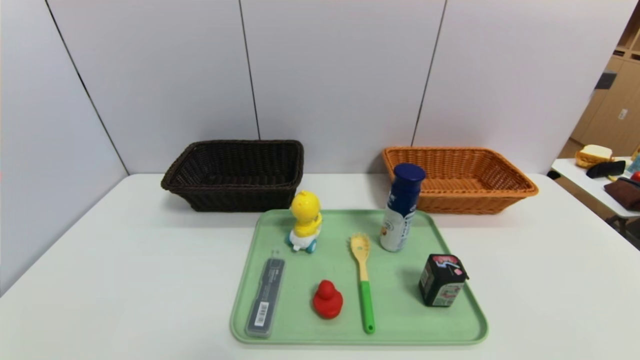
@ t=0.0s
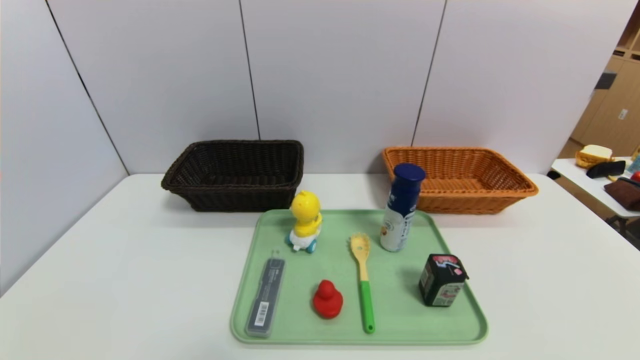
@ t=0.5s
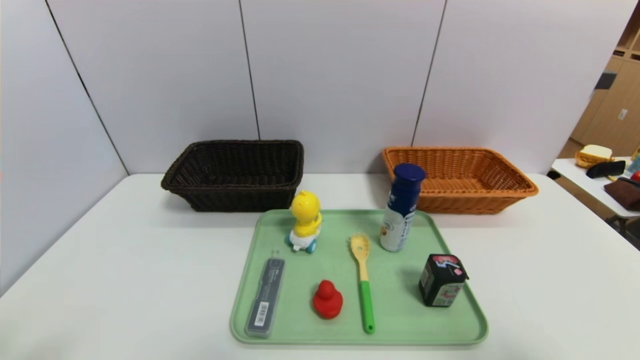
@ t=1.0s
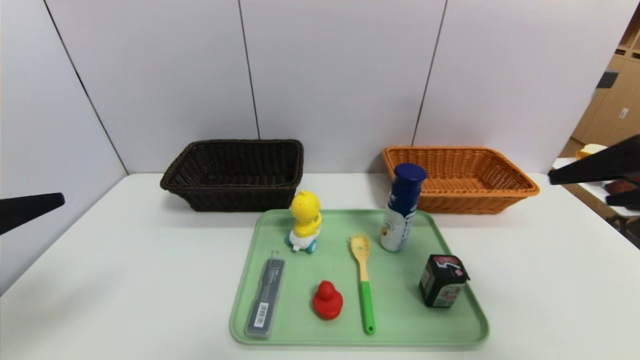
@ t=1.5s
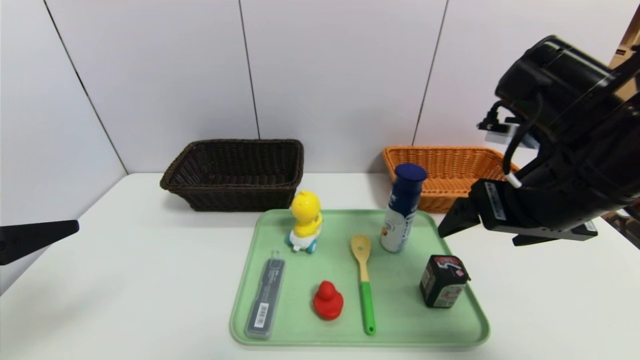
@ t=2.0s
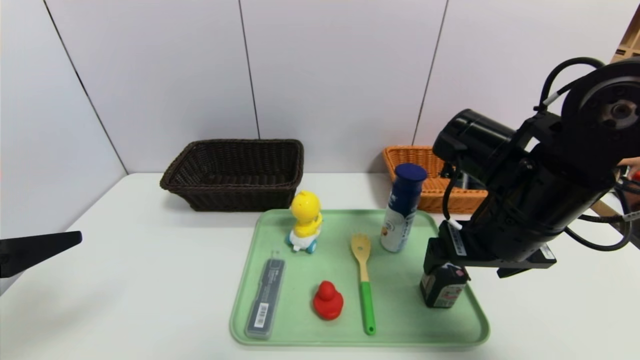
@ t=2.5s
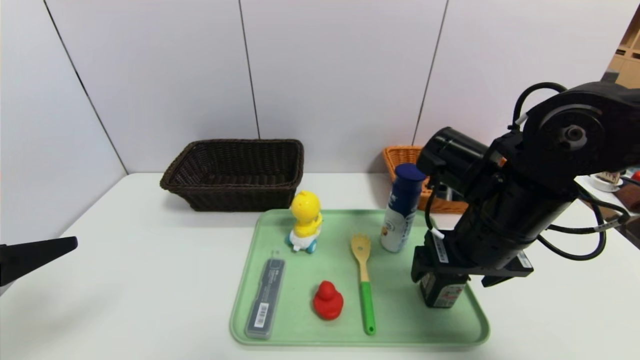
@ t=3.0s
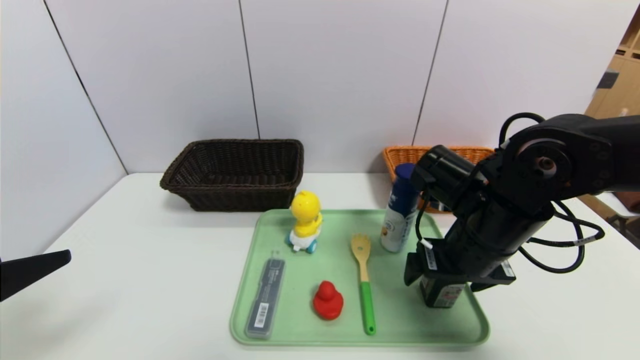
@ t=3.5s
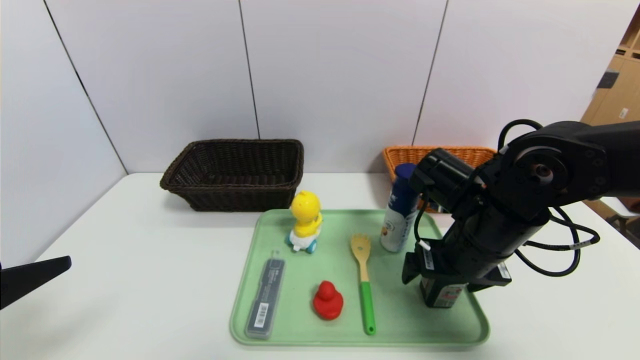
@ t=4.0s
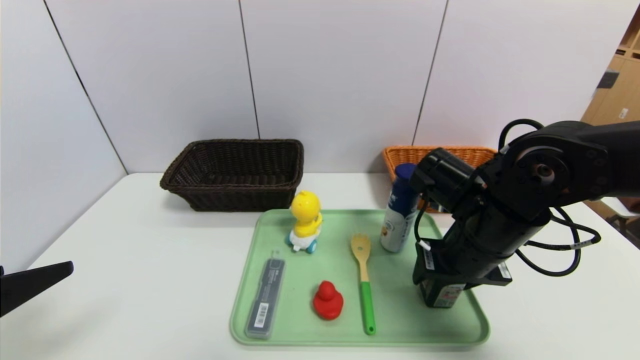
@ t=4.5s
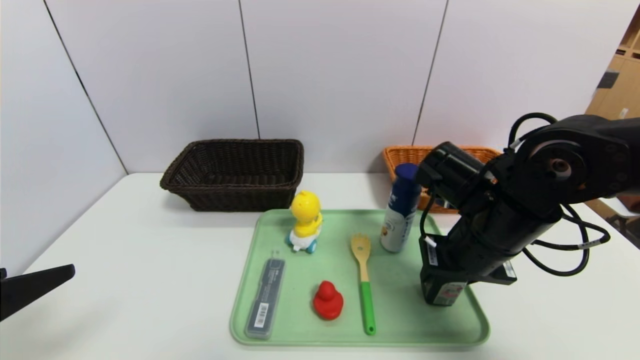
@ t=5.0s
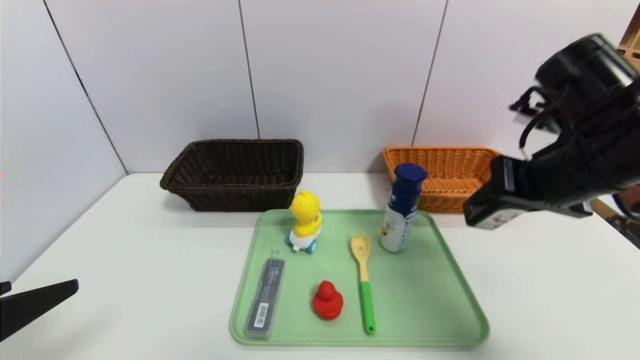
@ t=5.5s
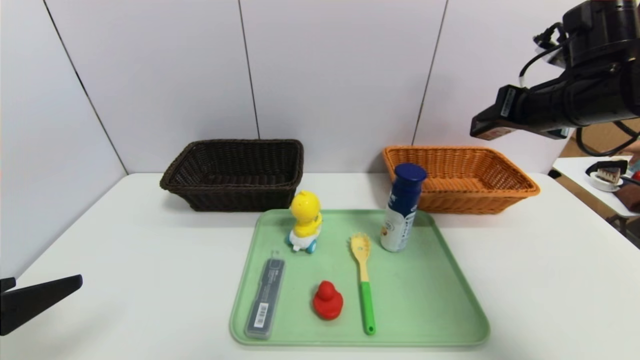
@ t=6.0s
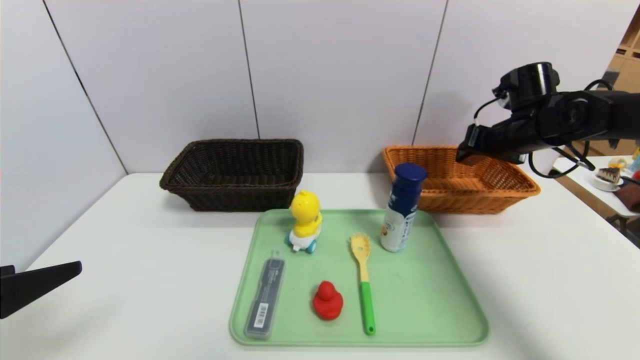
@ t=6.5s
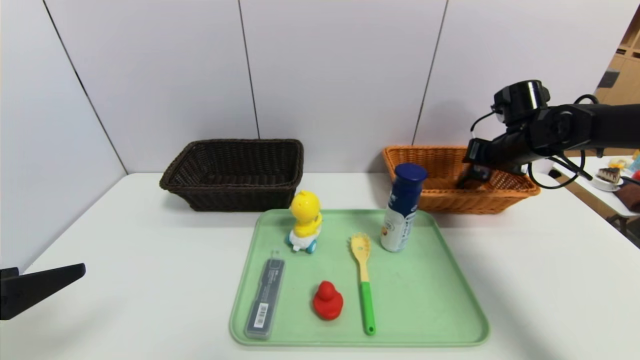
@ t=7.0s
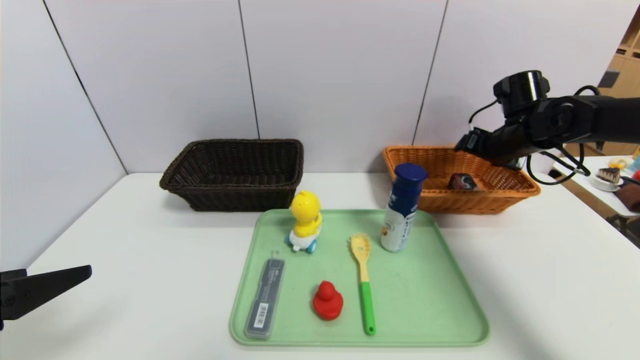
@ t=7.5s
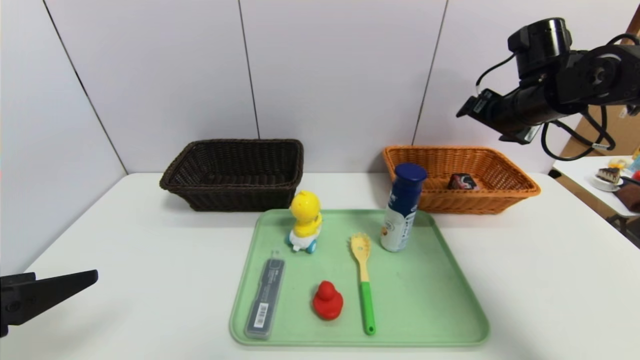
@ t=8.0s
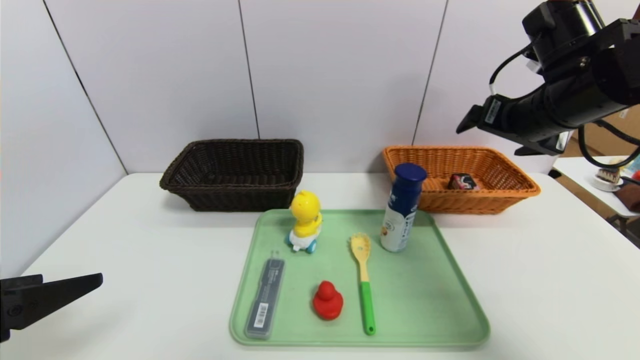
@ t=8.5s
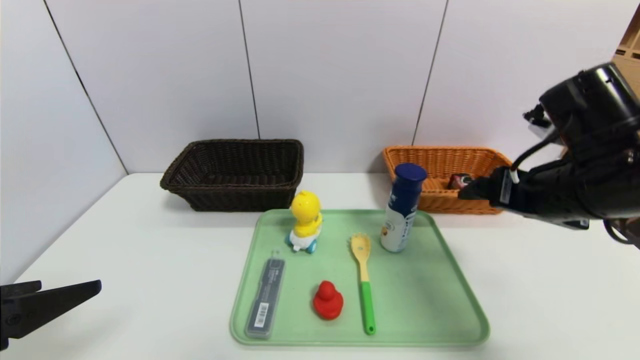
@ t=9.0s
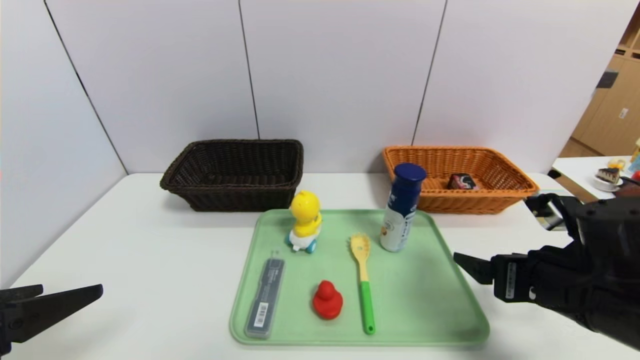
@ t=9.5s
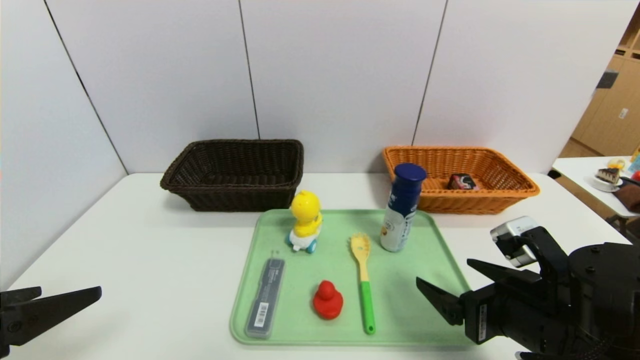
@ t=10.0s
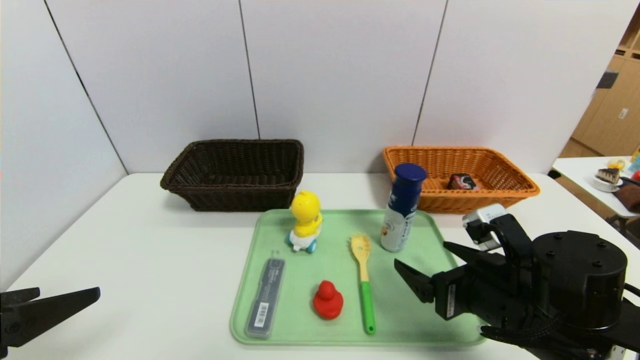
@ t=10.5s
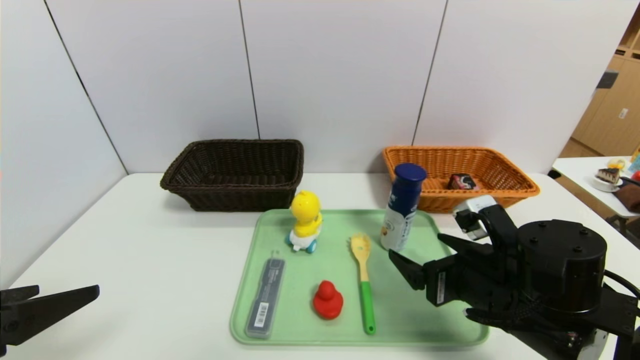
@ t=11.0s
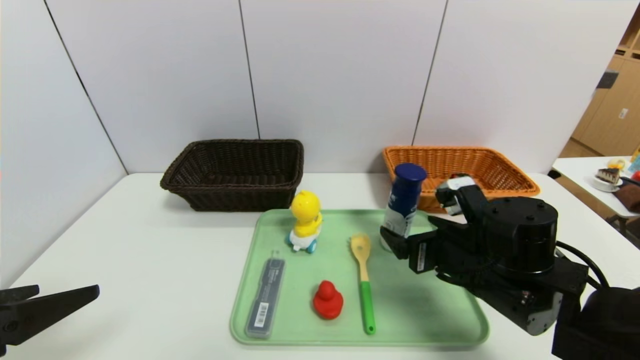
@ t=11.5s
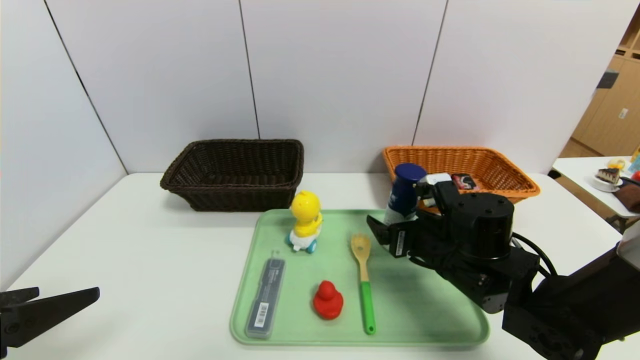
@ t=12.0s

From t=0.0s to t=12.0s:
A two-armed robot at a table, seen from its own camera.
Task of the whole recording: place the food in the right basket with the right gripper, and place the non food items in the left basket with the left gripper.
Step, from t=0.0s to t=8.5s: Grasp the square chewing gum and put it in the right basket.
From t=0.0s to t=2.0s: The right gripper goes approximately 35 cm forward, upward and to the left, while the left gripper heads upward and forward, covering some 25 cm.
From t=2.0s to t=4.0s: The right gripper heads downward, covering about 10 cm.
From t=4.0s to t=6.0s: The right gripper goes approximately 20 cm upward, to the right and forward, and closes its fingers.
From t=6.0s to t=8.0s: The right gripper goes approximately 5 cm forward, goes downward and returns, approximately 10 cm each way, and opens its fingers.
From t=8.0s to t=10.0s: The right gripper is displaced backward and downward by about 30 cm.
From t=10.0s to t=12.0s: The right gripper travels forward and to the left by some 10 cm.

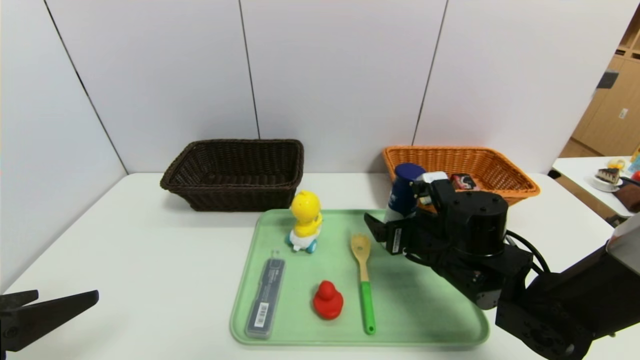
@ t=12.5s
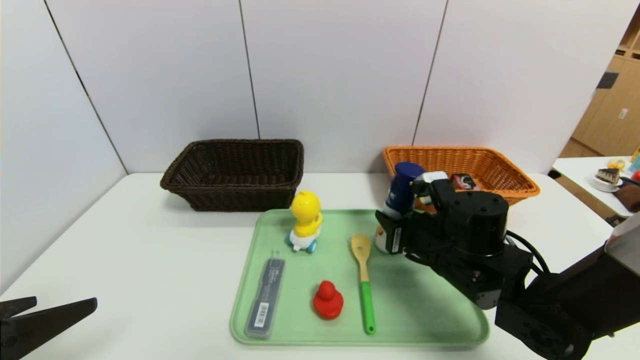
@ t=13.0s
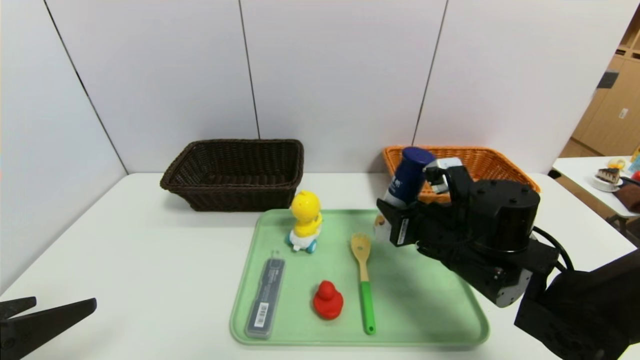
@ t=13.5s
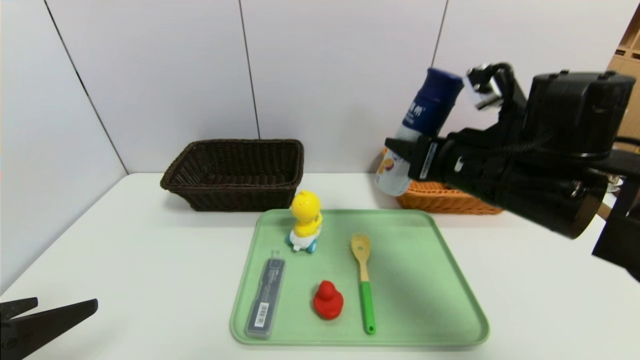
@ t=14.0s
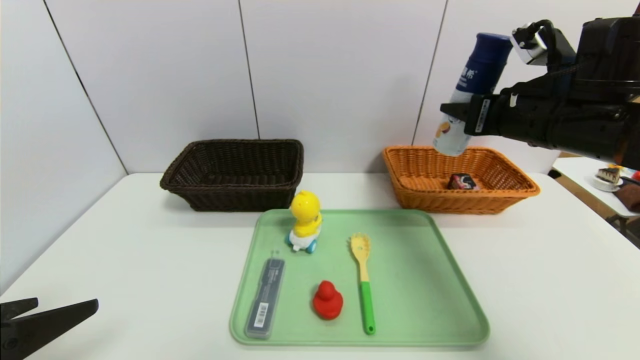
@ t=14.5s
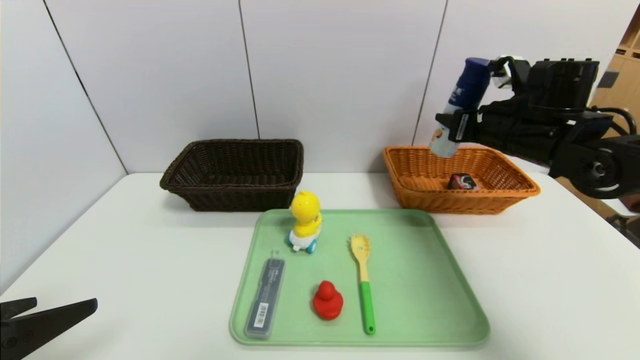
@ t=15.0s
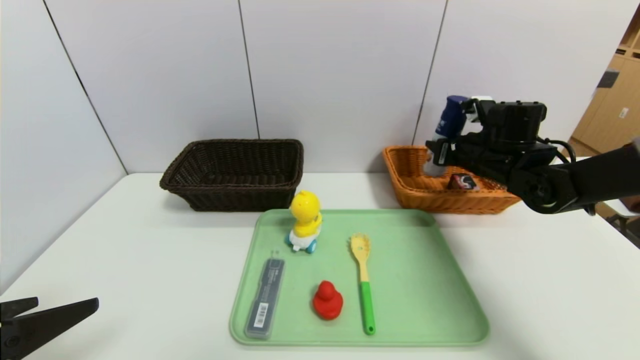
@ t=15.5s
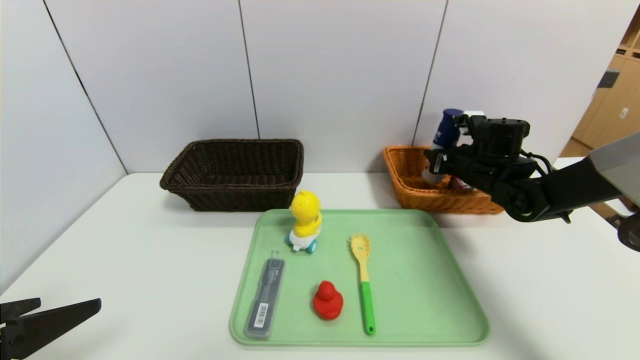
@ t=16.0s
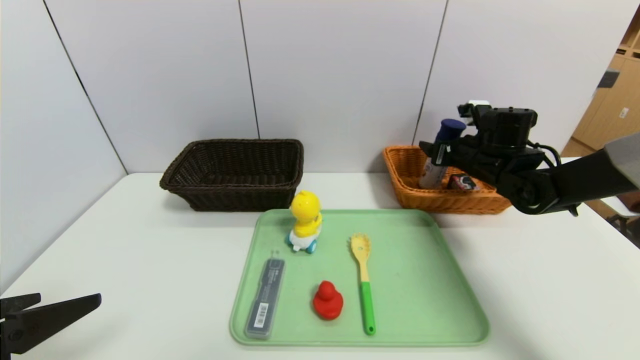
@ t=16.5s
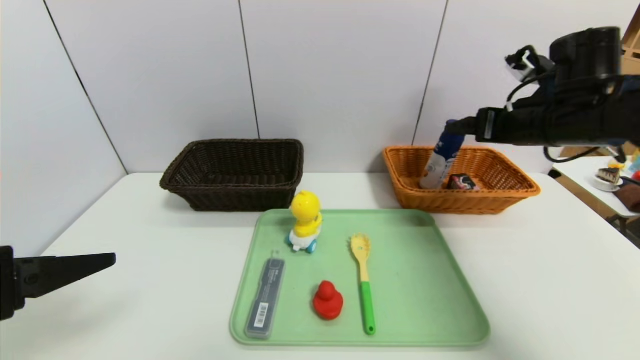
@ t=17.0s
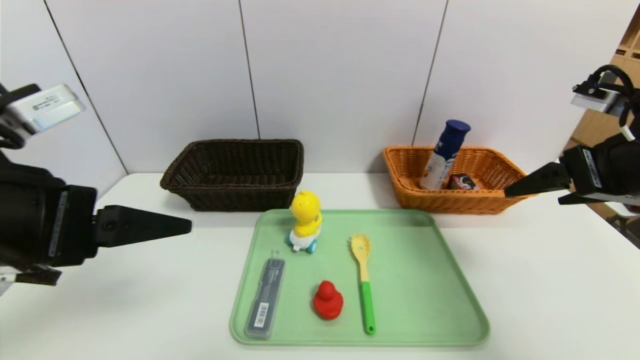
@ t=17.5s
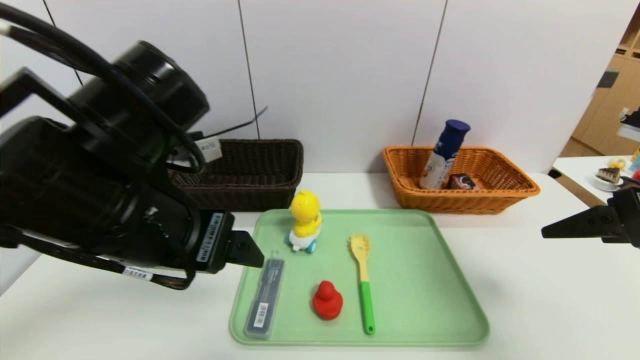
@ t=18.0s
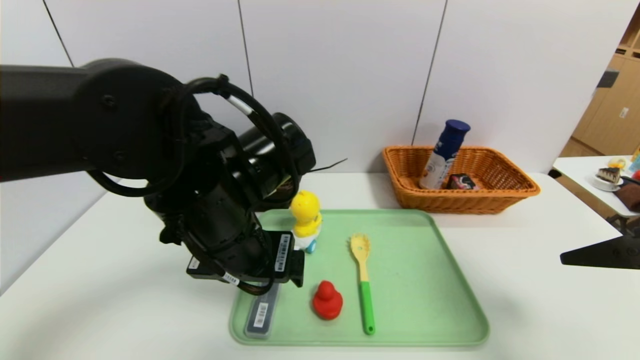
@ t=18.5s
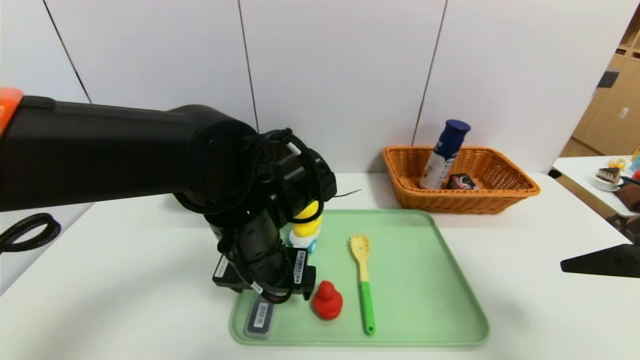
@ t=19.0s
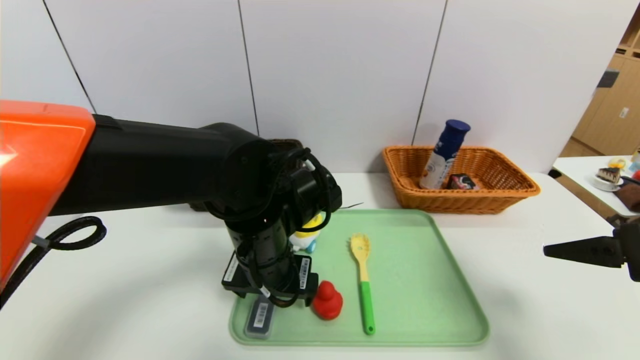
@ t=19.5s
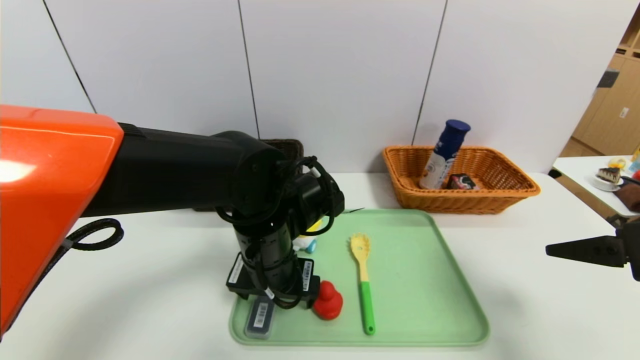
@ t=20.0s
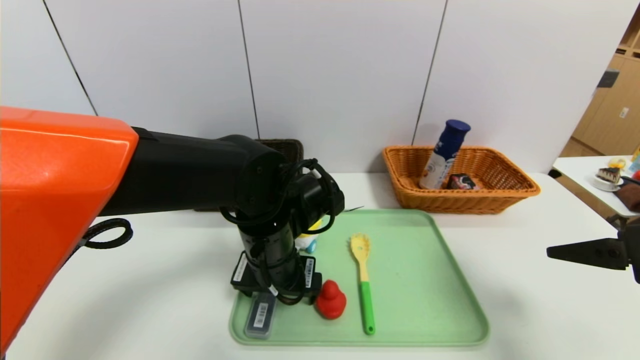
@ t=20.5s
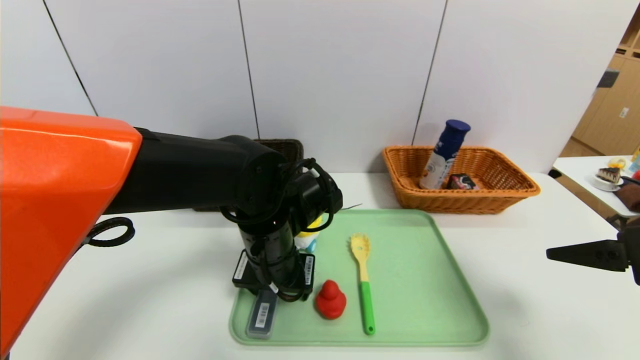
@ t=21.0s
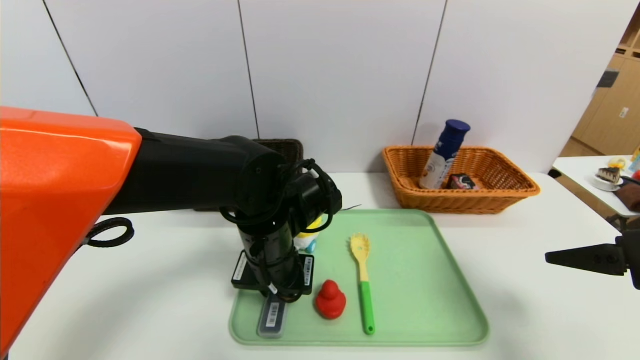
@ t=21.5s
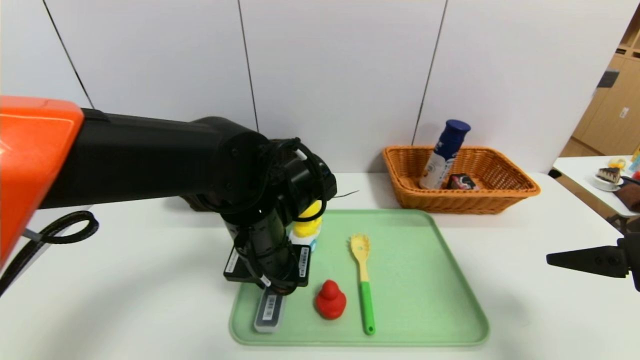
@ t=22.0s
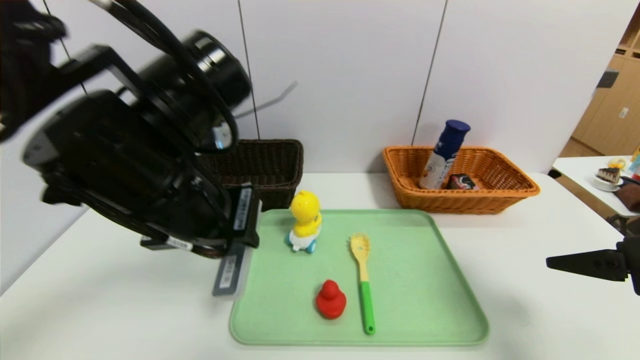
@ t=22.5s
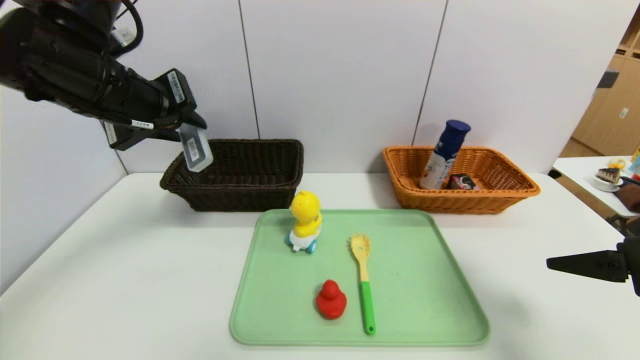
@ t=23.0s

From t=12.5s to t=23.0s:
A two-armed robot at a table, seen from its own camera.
Task of the whole recording: place the food in the right basket with the right gripper, and place the non food items in the left basket with the left gripper.
Step, from t=12.5s to t=16.5s: Grasp the yogurt and put it in the right basket.
From t=12.5s to t=14.5s: The right gripper goes roughly 20 cm upward and to the right, and closes its fingers.
From t=14.5s to t=16.5s: The right gripper is displaced forward and downward by roughly 15 cm, and opens up.
From t=16.5s to t=19.0s: The left gripper goes some 30 cm to the right and forward. The right gripper shifts some 30 cm backward.
From t=19.0s to t=21.0s: The grippers stay close to where they were, moving slightly.
From t=21.0s to t=23.0s: The left gripper heads upward and to the left, covering approximately 25 cm, and closes.
